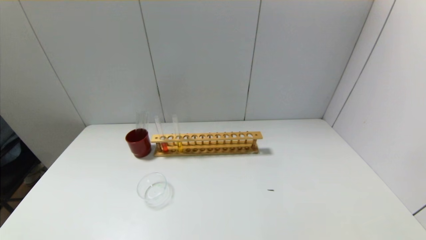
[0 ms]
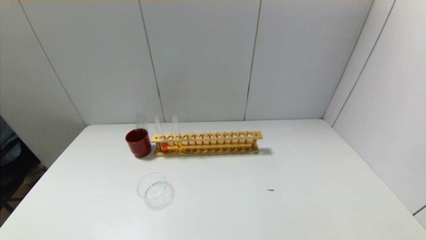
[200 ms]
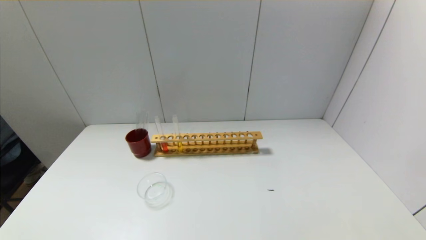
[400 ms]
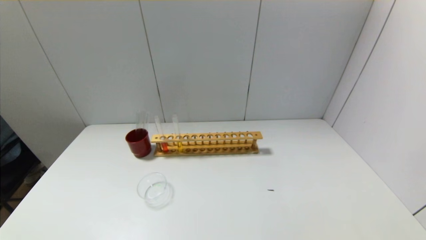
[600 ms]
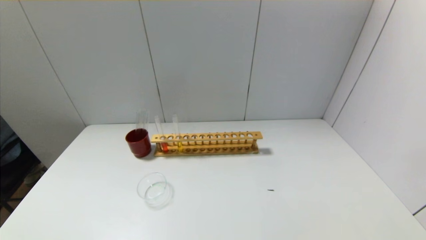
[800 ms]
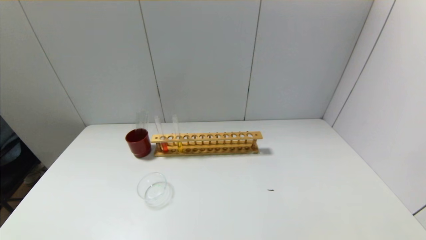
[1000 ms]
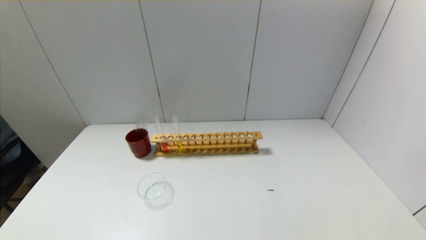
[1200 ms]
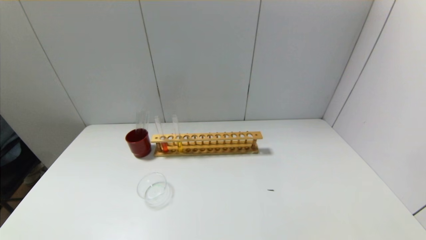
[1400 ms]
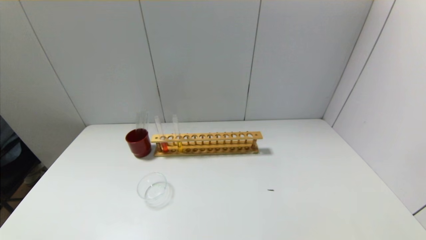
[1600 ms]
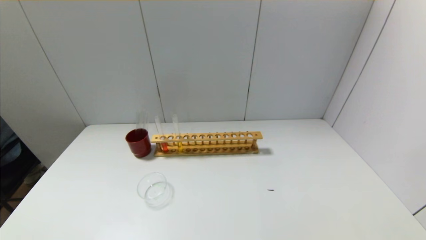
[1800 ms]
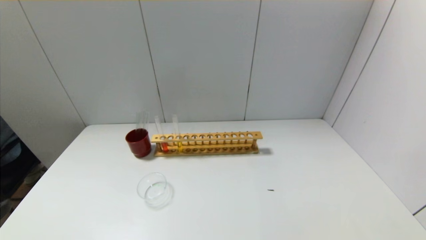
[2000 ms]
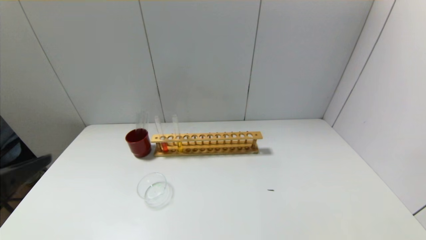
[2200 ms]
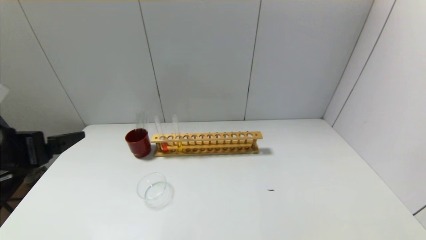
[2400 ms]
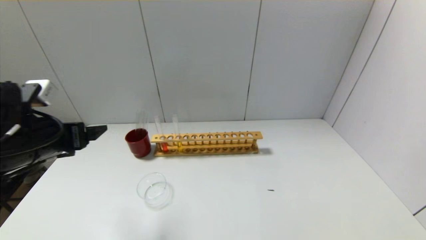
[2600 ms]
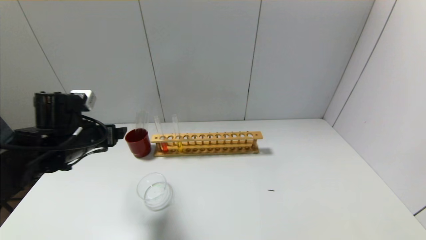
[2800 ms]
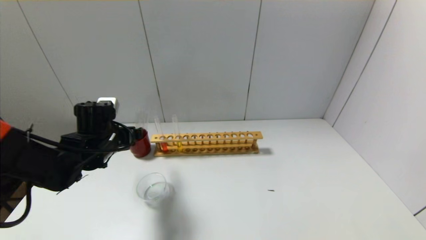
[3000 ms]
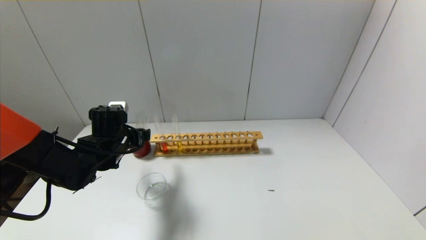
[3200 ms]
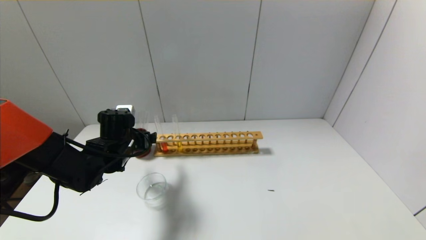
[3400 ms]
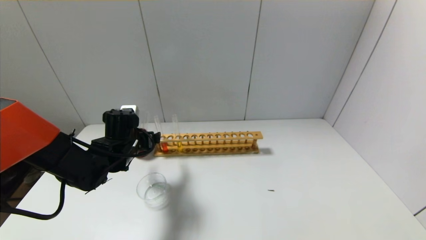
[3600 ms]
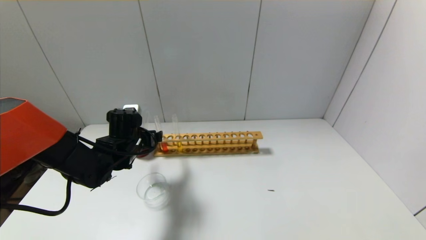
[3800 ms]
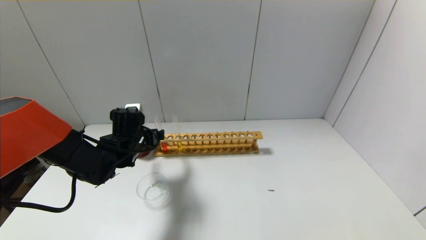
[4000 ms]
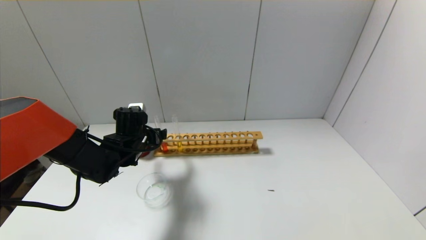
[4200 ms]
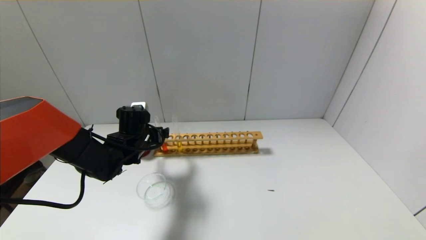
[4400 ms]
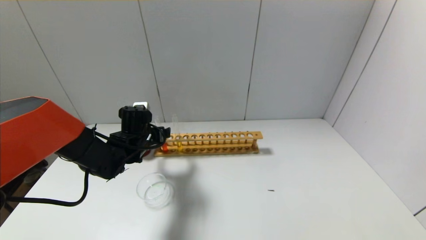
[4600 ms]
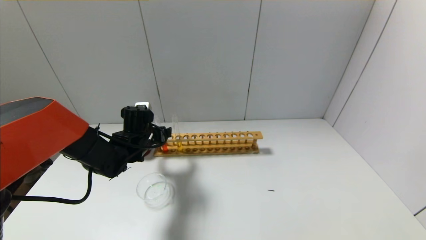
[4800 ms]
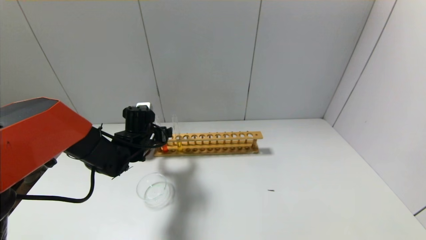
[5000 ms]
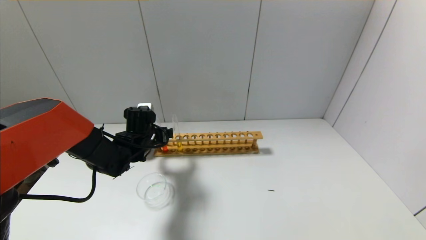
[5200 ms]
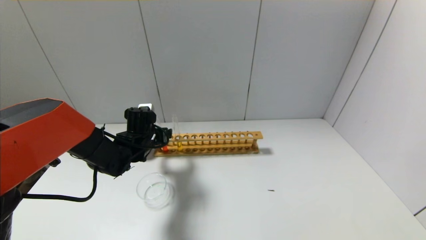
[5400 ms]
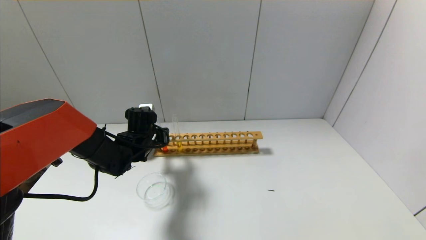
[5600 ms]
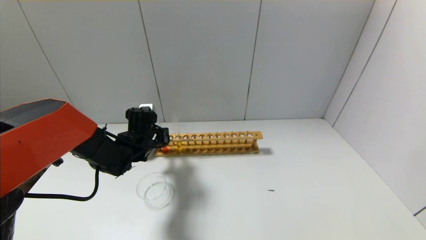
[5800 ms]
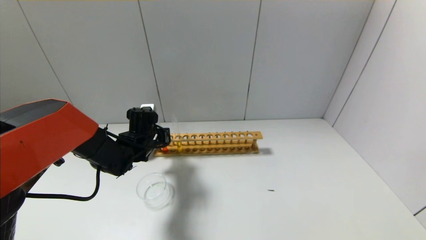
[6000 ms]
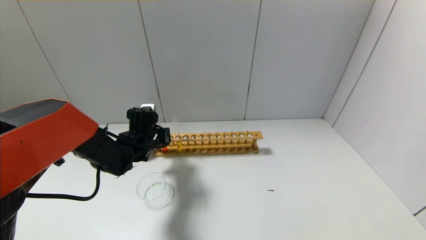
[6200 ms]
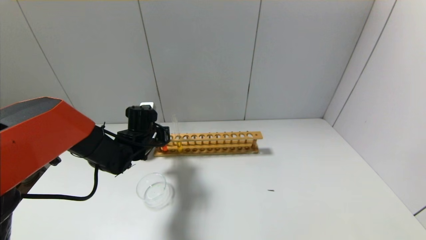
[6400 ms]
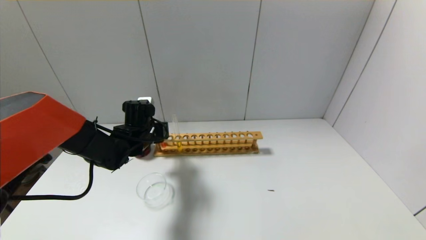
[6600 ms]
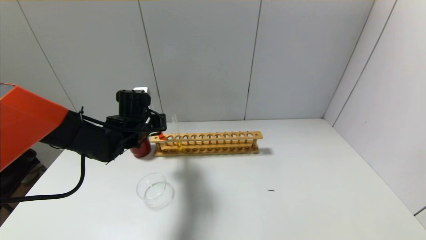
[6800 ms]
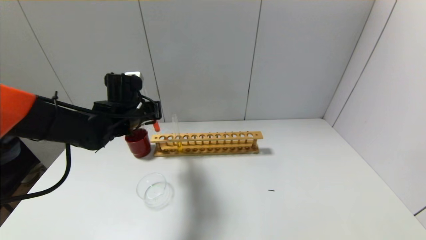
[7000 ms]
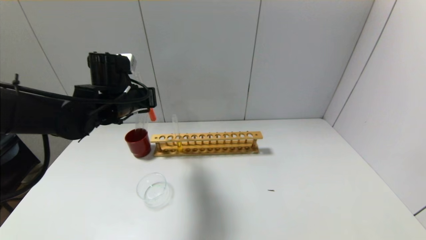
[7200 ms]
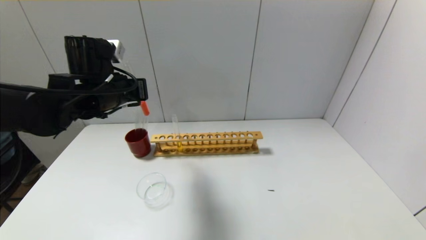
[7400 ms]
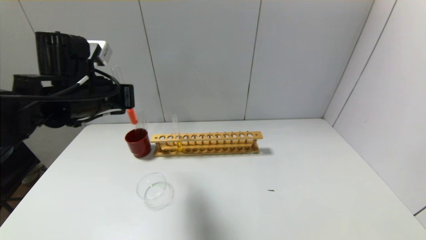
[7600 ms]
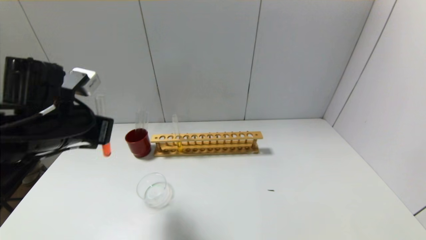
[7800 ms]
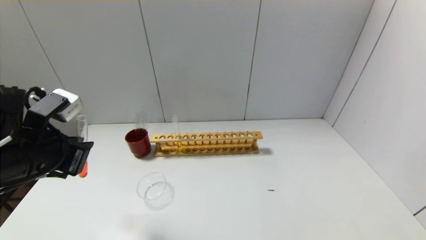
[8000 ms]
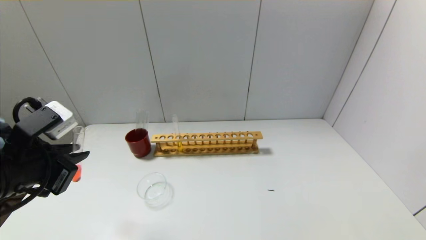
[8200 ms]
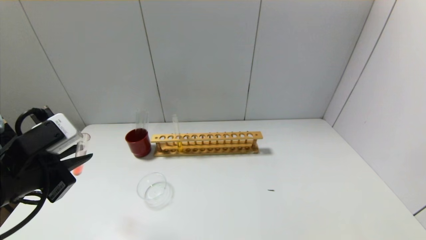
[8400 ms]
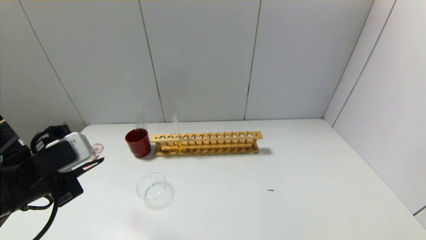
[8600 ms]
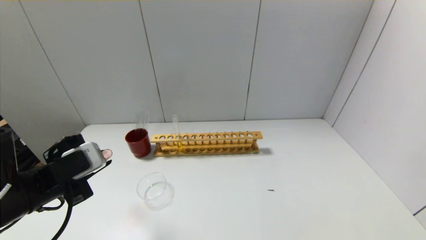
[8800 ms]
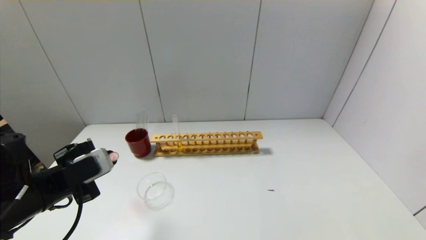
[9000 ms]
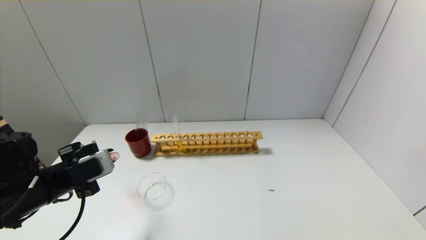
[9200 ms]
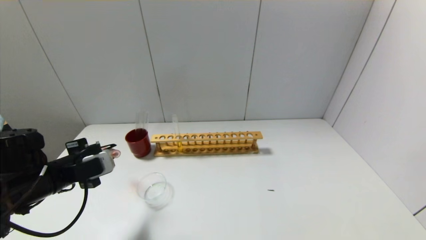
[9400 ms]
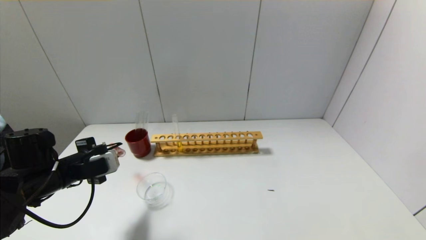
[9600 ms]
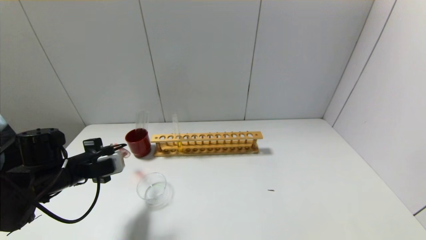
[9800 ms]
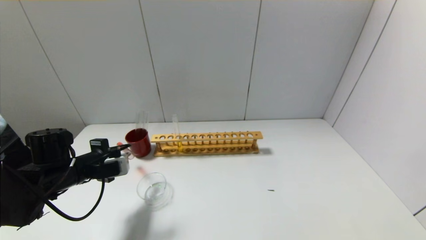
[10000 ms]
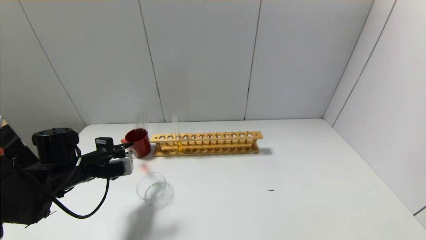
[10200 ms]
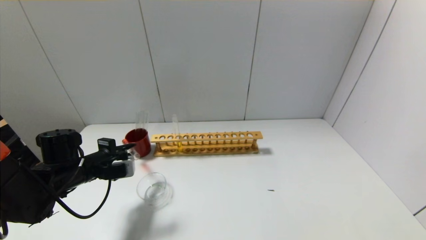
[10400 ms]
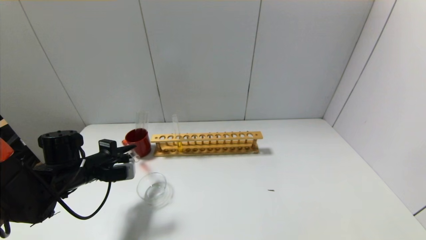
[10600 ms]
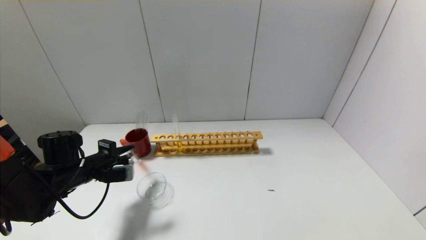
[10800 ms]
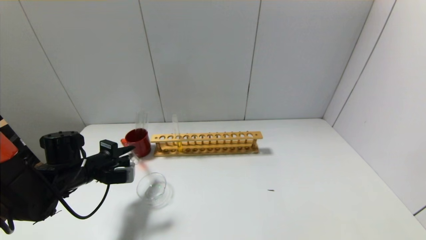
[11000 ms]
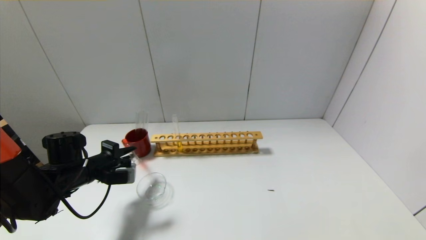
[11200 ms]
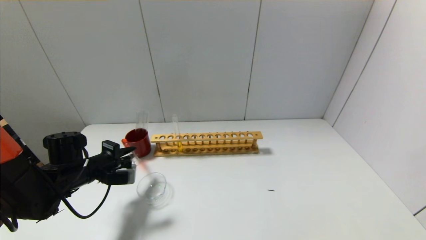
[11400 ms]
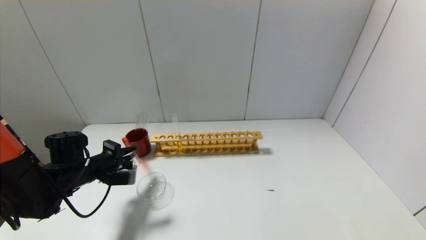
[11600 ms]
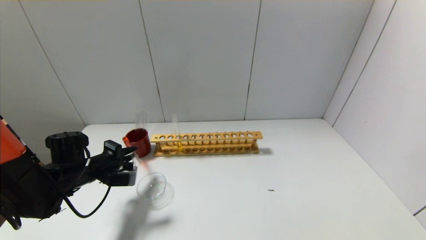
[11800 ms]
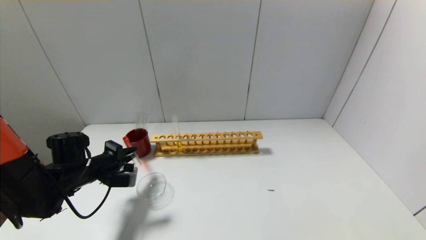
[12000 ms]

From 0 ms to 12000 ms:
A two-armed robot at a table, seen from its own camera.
Step, from 0 ms to 6000 ms: Grasp the red reagent with the left gripper.
From 1600 ms to 3000 ms: The left gripper is displaced forward by approximately 35 cm.
From 3000 ms to 4400 ms: The left gripper ends up roughly 5 cm from where it was.
From 4400 ms to 6000 ms: The left gripper closes.
From 6000 ms to 7600 ms: The left gripper goes approximately 20 cm upward and backward.
From 7600 ms to 9000 ms: The left gripper moves downward, backward and to the left, approximately 15 cm.
From 9000 ms to 10400 ms: The left gripper is displaced forward and downward by some 10 cm.
From 10400 ms to 12000 ms: There are only small adjustments of the grippers.

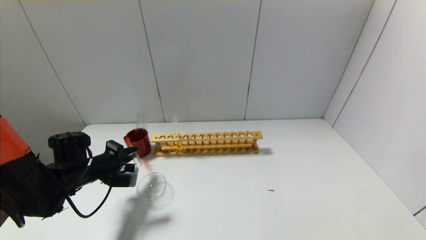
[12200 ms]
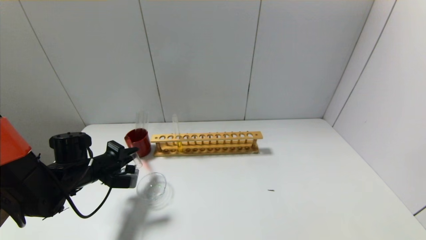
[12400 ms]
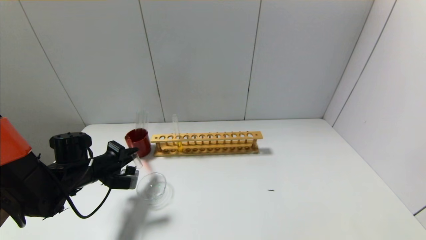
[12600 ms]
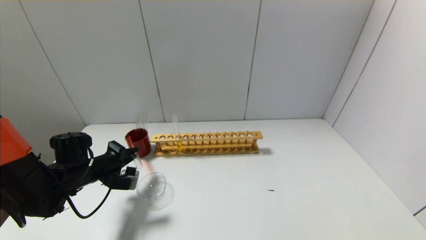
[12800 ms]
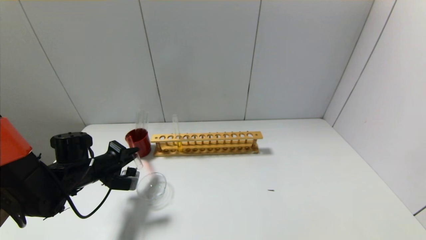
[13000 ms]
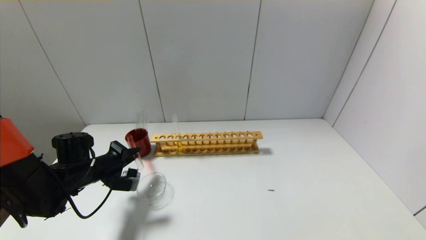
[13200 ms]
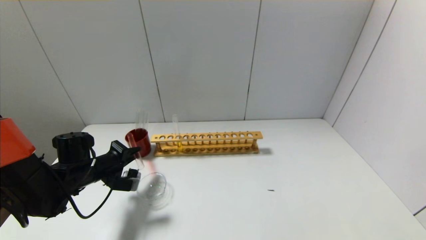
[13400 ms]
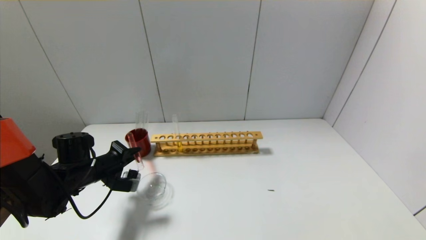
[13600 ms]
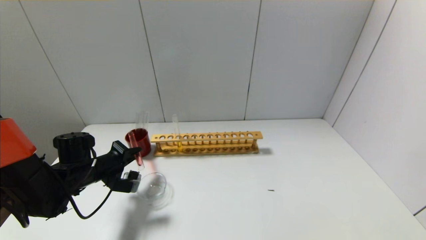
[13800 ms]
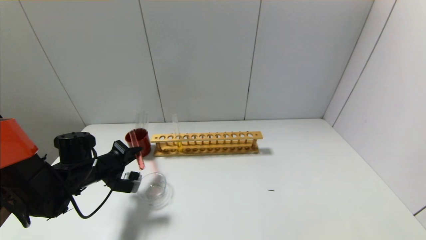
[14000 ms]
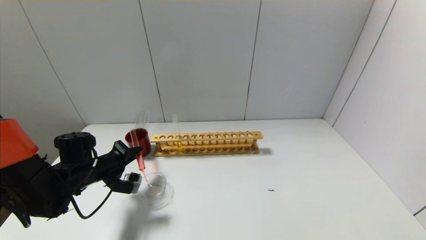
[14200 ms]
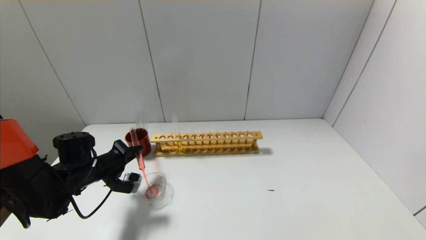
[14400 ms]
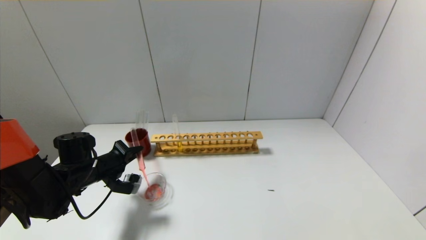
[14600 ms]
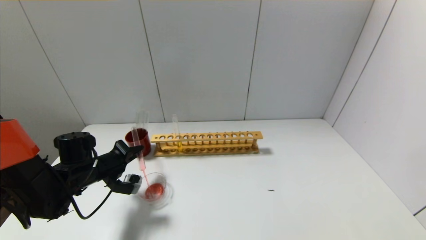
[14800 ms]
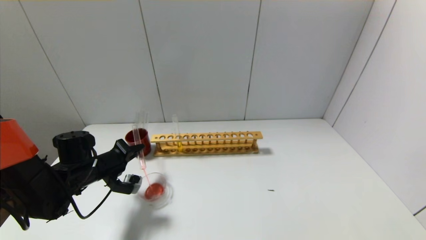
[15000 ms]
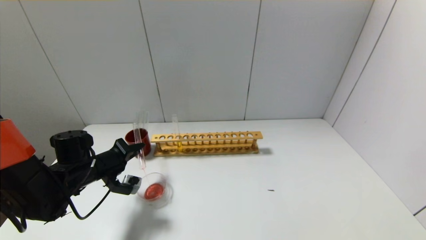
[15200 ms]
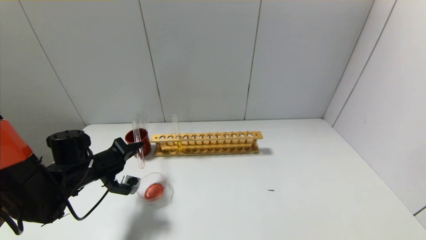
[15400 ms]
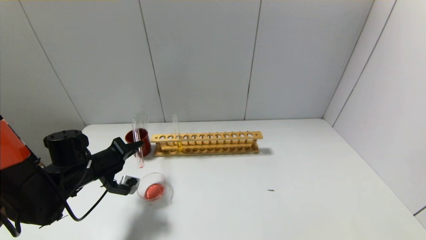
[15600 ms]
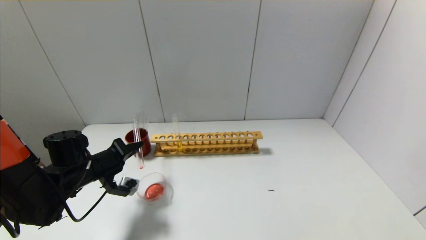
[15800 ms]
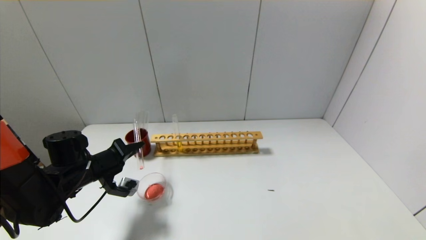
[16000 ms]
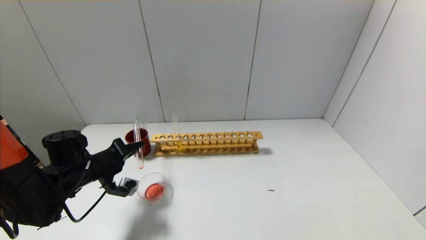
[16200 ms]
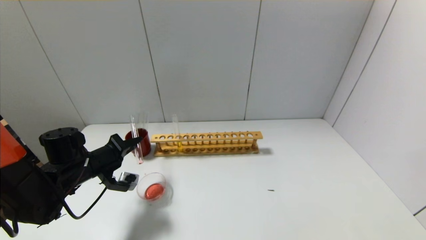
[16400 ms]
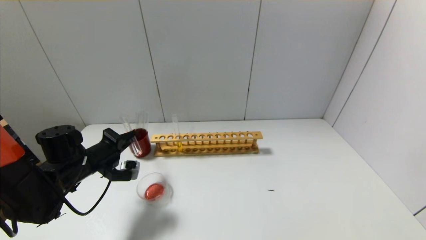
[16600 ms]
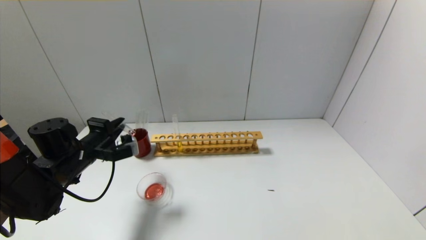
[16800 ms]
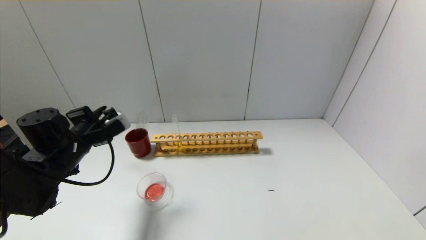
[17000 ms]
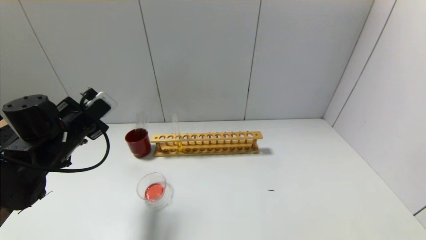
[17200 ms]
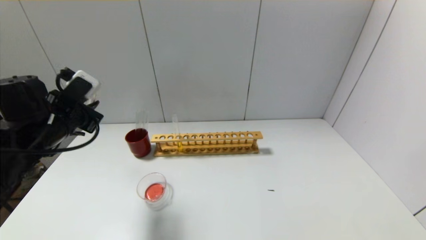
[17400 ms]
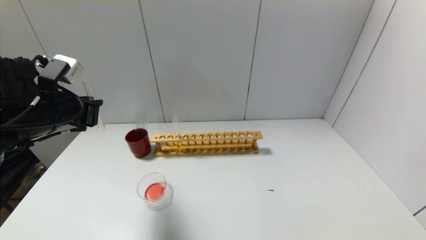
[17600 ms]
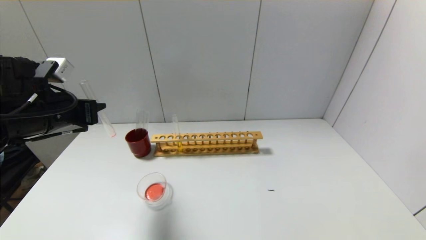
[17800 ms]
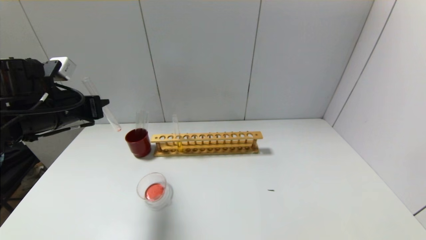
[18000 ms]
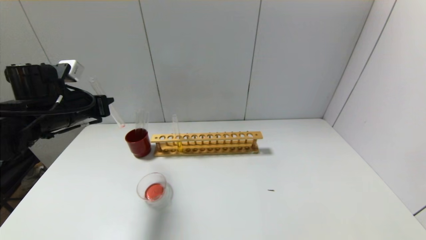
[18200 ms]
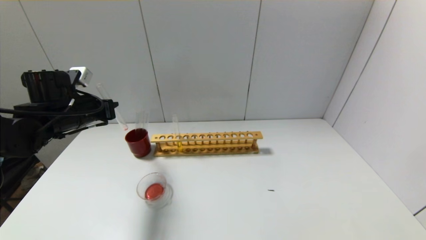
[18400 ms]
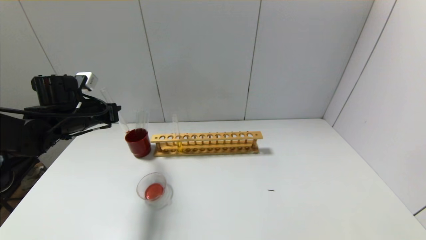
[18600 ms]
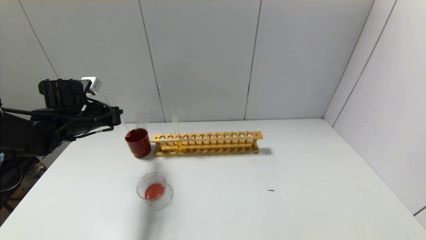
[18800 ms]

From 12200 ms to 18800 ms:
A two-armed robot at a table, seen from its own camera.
Step, from 12200 ms to 16400 ms: Pour the red reagent into the graduated cylinder with the left gripper.
From 12200 ms to 13800 ms: The grippers stay close to where they were, moving slightly.
From 13800 ms to 15400 ms: There are only small adjustments of the grippers.
From 15400 ms to 17200 ms: The left gripper heads upward, covering some 10 cm.
From 17200 ms to 18800 ms: The left gripper shifts about 5 cm forward.
